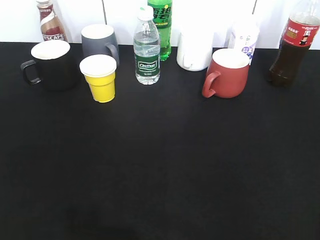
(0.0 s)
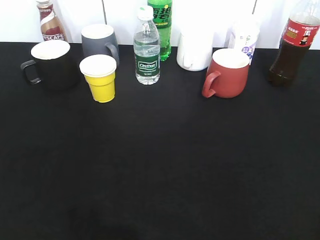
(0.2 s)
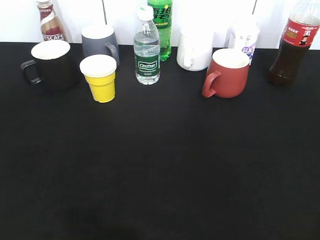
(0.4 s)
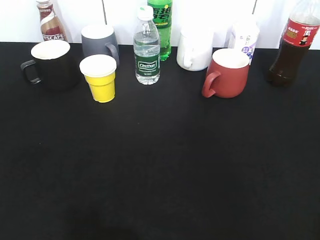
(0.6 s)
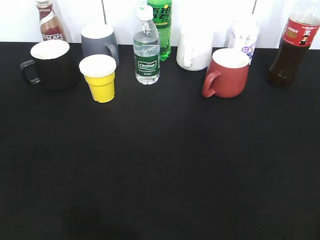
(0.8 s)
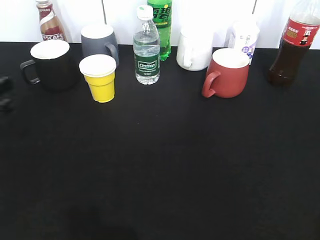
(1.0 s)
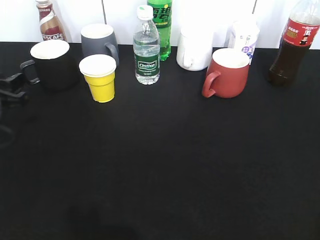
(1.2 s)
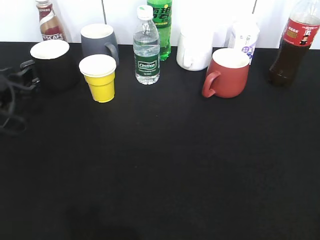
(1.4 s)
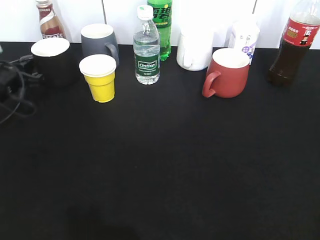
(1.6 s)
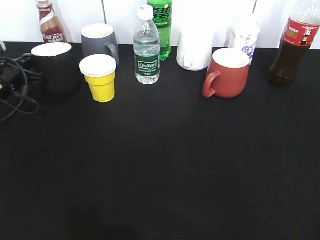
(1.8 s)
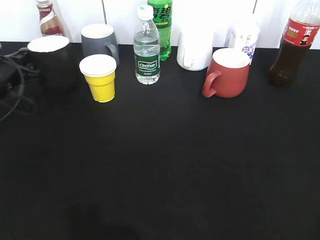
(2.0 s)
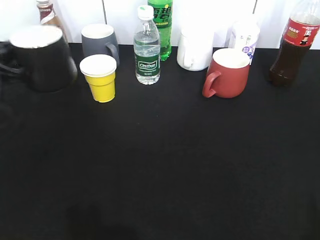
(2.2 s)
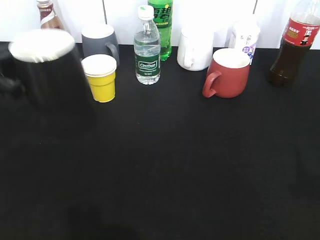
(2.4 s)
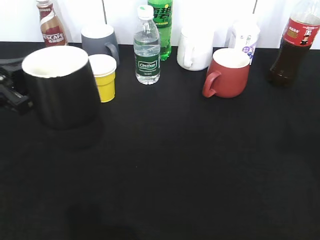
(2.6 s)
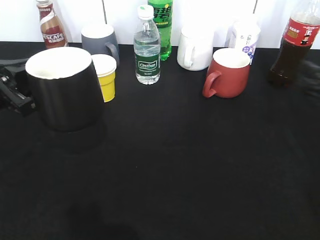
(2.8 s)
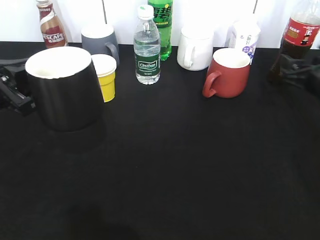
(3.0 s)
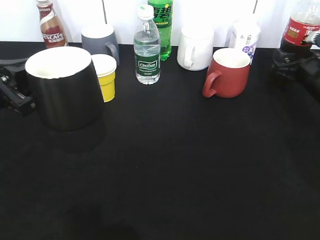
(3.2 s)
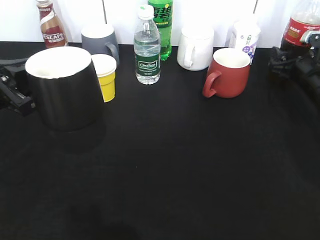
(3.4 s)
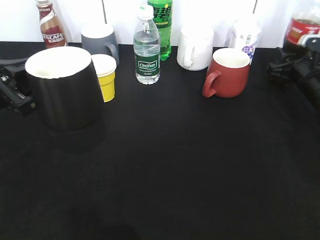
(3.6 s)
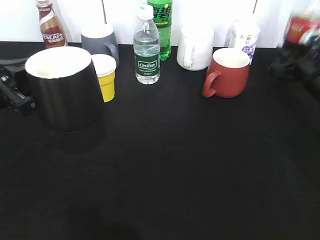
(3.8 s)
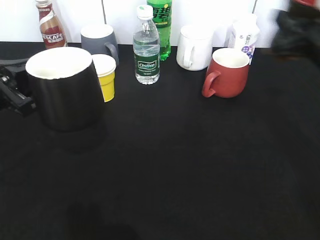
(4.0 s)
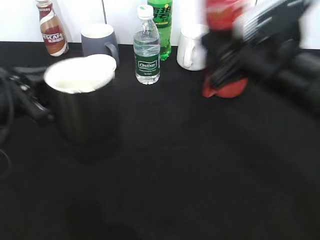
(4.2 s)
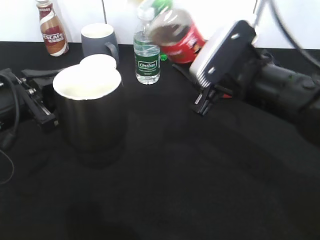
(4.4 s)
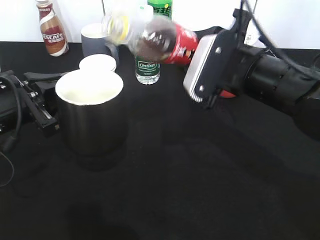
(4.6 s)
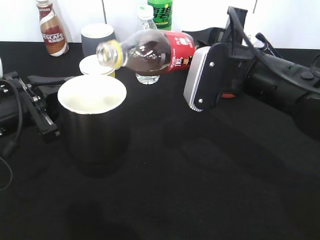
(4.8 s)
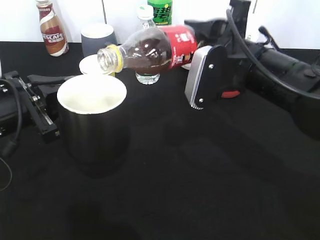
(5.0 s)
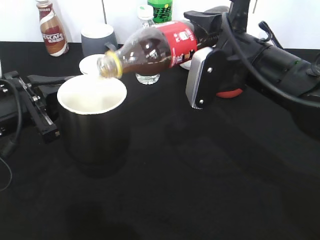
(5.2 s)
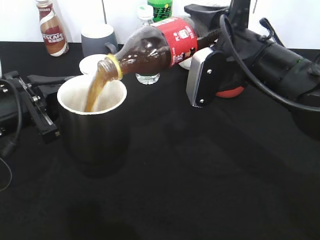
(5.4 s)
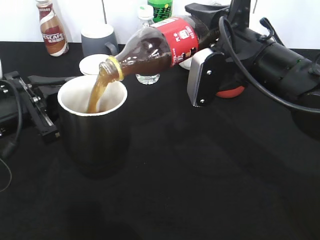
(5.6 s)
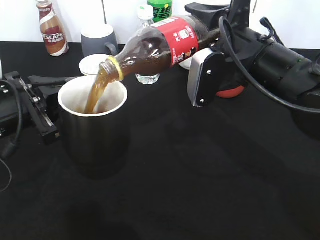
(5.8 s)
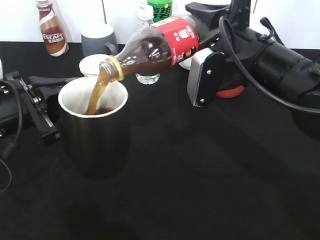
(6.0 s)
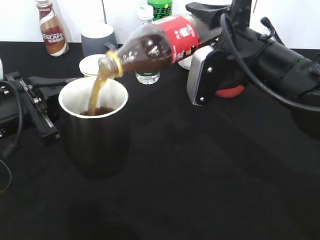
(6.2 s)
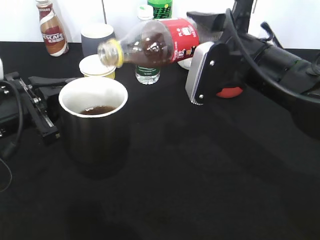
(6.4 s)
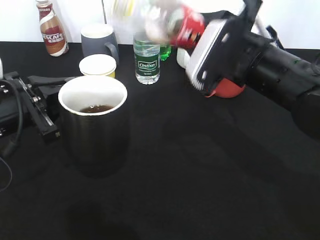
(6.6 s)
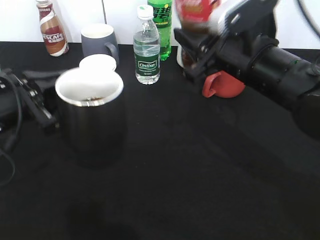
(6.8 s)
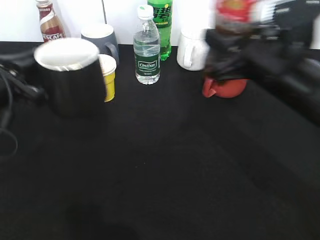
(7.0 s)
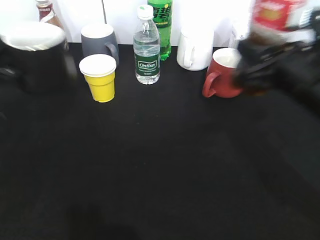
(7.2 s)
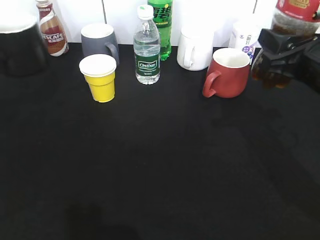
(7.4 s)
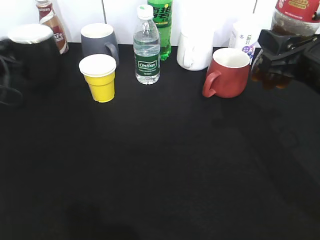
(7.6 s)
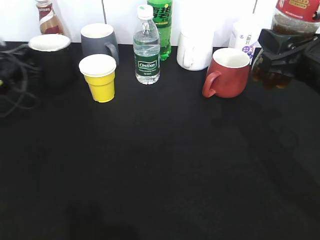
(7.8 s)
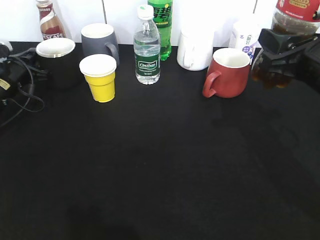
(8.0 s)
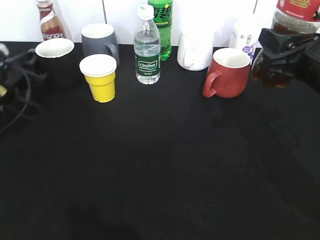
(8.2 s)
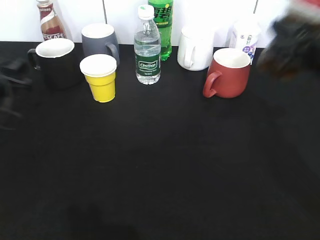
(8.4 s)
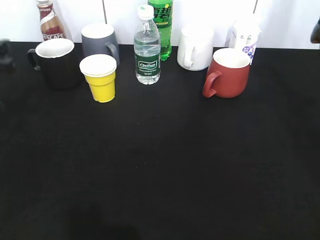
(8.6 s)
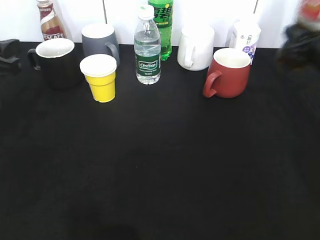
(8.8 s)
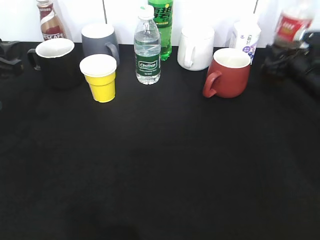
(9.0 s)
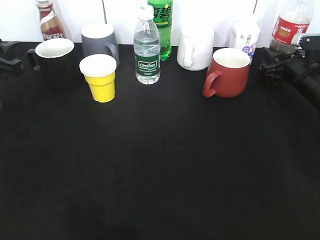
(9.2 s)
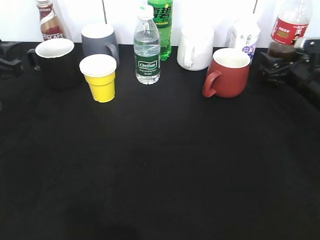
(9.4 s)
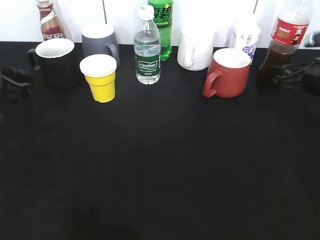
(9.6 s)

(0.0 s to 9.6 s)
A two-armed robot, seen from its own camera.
Step, 0.0 s - 1.6 s: Grasp the black cup with left gripper.
Step, 2.0 s - 2.4 s: Lift the black cup with left gripper.
Step, 3.8 s - 6.4 s: Pour the cola from bottle to cup with right gripper.
Step, 6.6 s - 8.2 s: Place the black cup on the table with left gripper.
0.0 s - 1.6 s: The left gripper travels forward and downward by some 40 cm, and closes its fingers.
1.6 s - 3.2 s: The left gripper shifts about 15 cm backward and upward. Meanwhile the right gripper is displaced forward by about 40 cm.
3.2 s - 4.8 s: The right gripper goes approximately 25 cm to the left, backward and upward, and closes its fingers.
6.4 s - 8.0 s: The left gripper travels forward, to the left and downward by roughly 20 cm. Meanwhile the right gripper is displaced to the right by roughly 10 cm.
8.0 s - 9.6 s: The right gripper heads forward, to the right and downward, covering some 15 cm, and opens up. Meanwhile the left gripper goes roughly 20 cm backward and upward, and opens up.

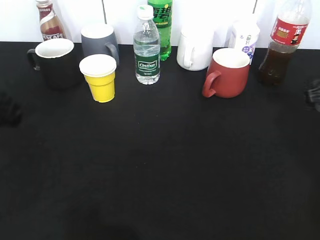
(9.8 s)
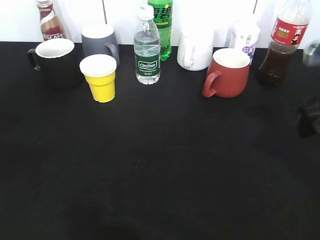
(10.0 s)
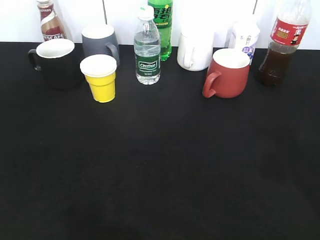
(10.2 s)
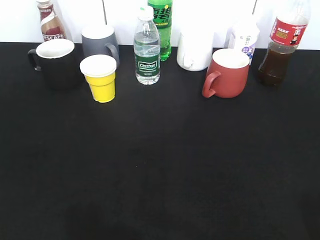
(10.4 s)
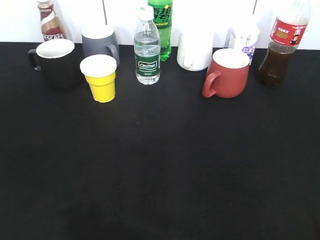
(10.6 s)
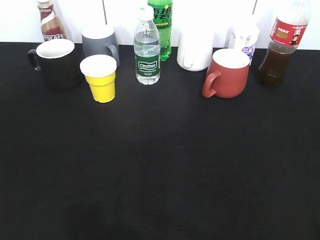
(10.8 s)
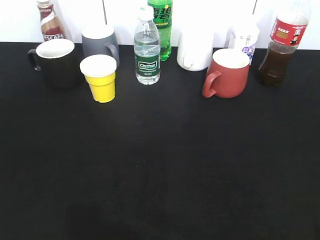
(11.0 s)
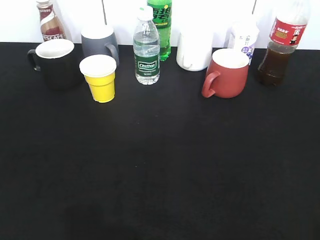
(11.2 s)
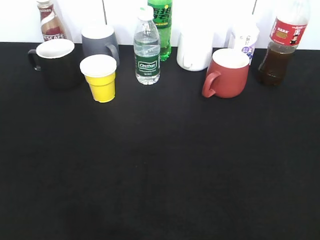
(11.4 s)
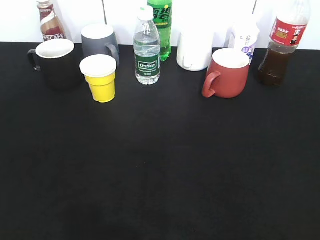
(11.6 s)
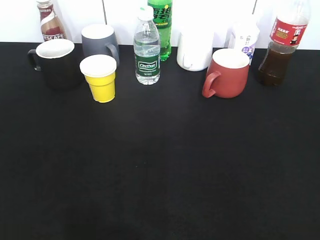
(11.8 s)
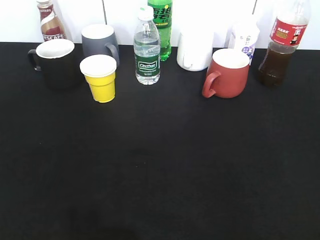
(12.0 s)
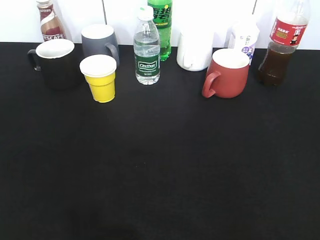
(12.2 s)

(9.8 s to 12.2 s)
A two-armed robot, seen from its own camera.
9.8 s - 11.0 s: Both grippers travel together backward, approximately 25 cm.

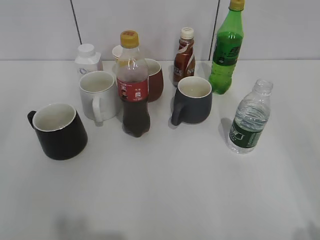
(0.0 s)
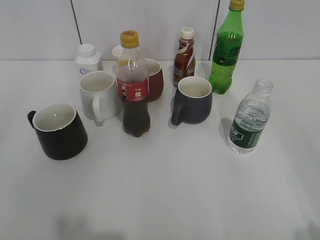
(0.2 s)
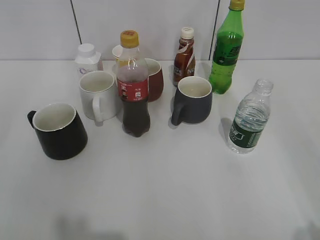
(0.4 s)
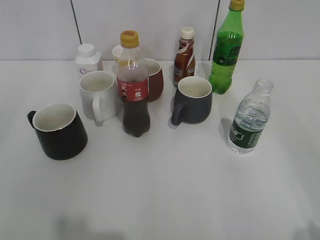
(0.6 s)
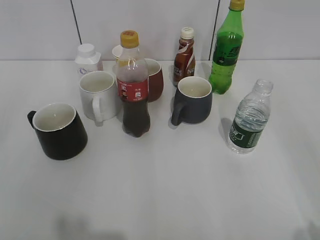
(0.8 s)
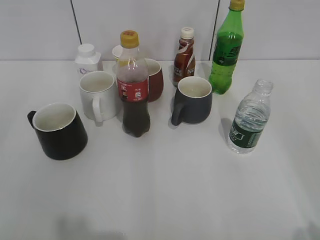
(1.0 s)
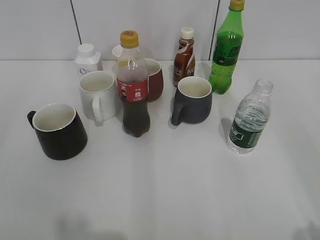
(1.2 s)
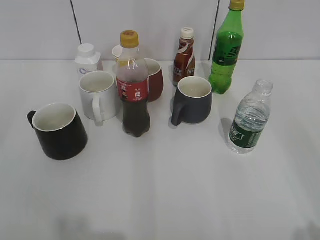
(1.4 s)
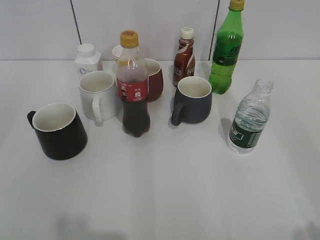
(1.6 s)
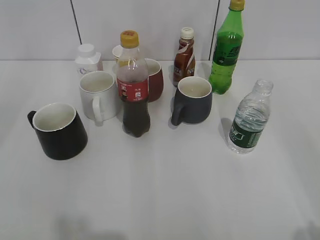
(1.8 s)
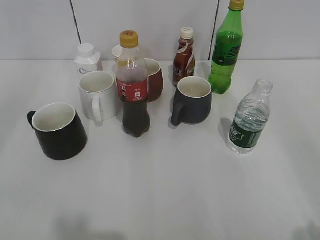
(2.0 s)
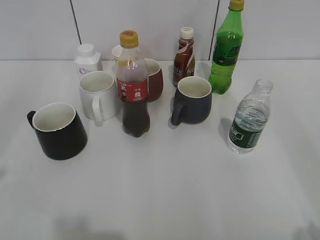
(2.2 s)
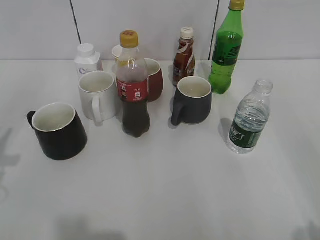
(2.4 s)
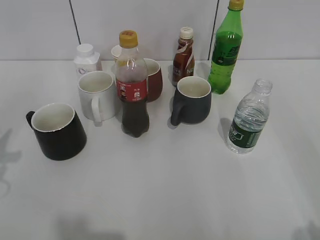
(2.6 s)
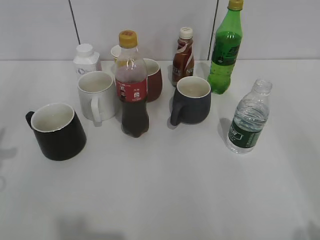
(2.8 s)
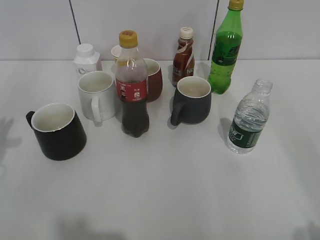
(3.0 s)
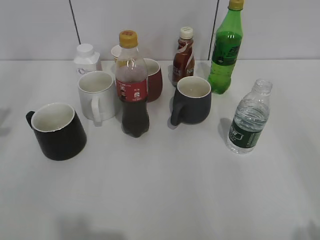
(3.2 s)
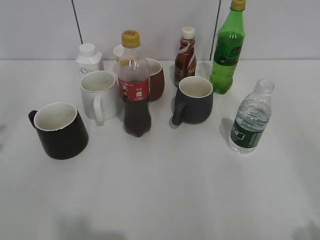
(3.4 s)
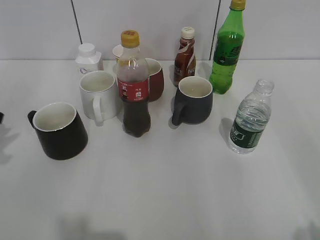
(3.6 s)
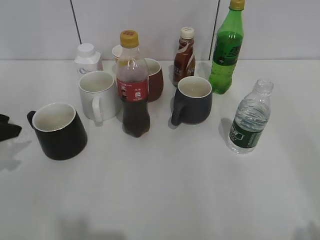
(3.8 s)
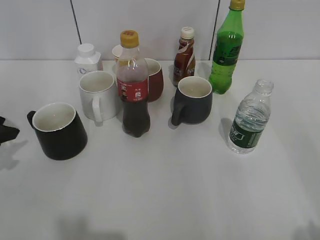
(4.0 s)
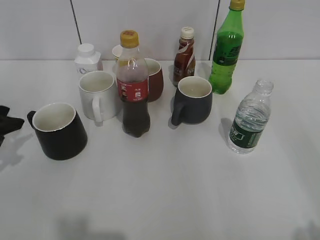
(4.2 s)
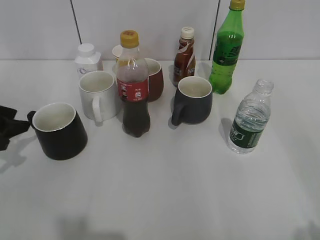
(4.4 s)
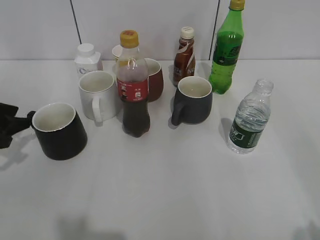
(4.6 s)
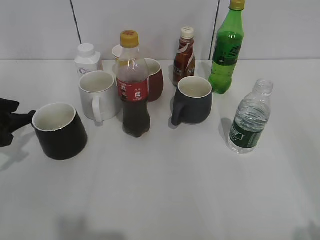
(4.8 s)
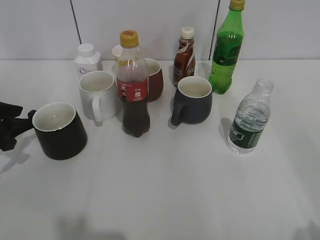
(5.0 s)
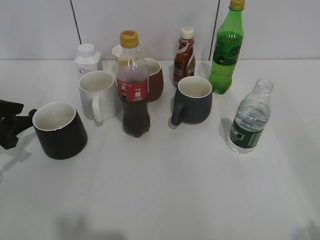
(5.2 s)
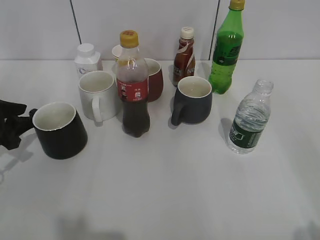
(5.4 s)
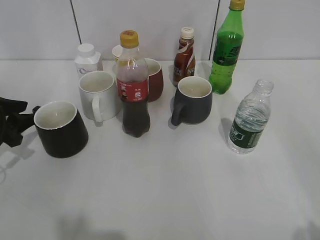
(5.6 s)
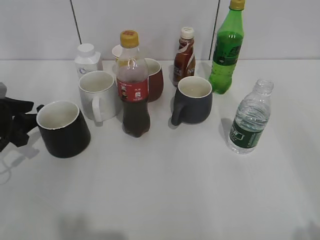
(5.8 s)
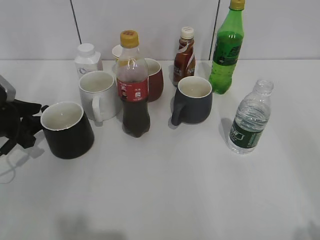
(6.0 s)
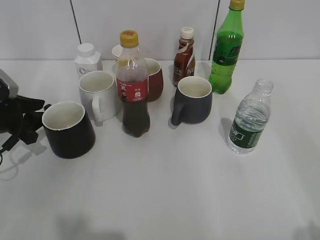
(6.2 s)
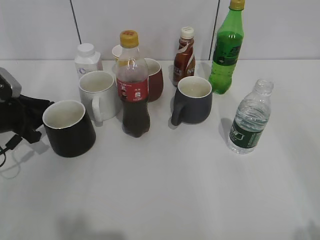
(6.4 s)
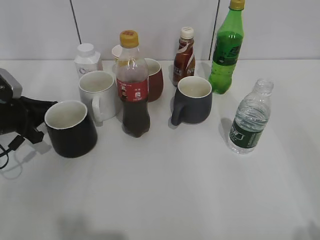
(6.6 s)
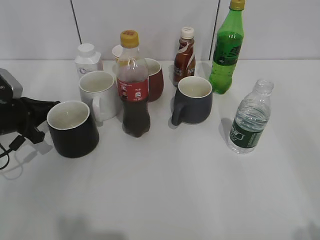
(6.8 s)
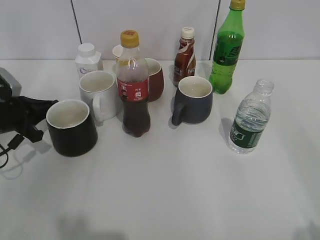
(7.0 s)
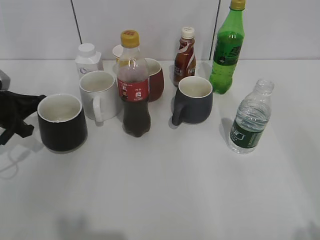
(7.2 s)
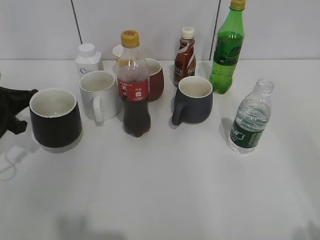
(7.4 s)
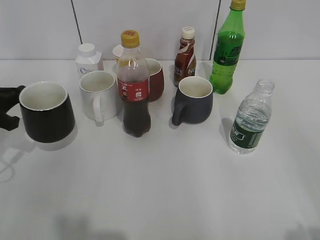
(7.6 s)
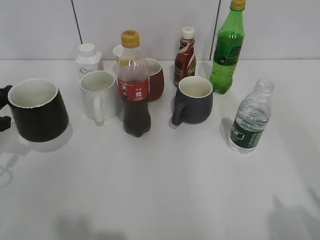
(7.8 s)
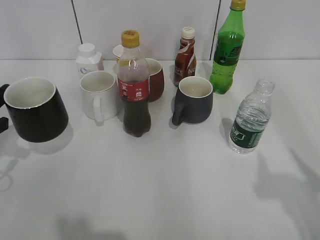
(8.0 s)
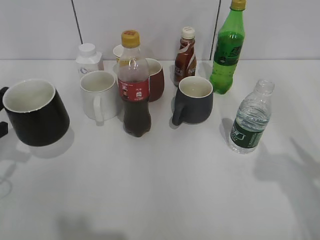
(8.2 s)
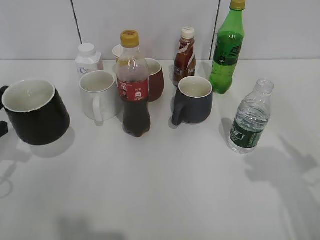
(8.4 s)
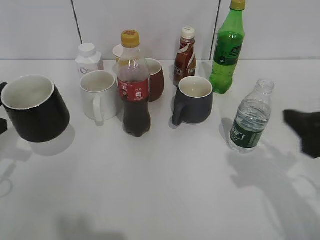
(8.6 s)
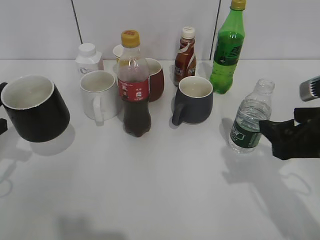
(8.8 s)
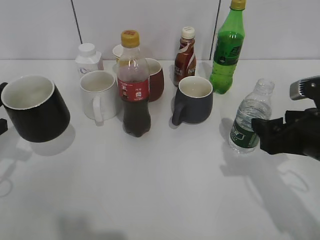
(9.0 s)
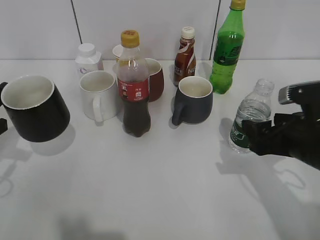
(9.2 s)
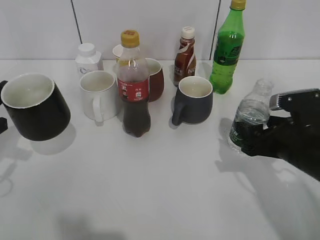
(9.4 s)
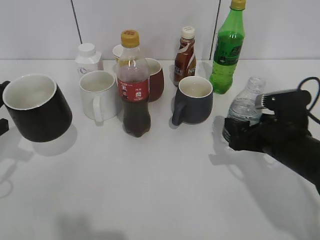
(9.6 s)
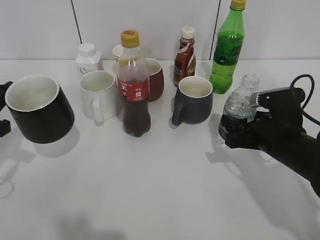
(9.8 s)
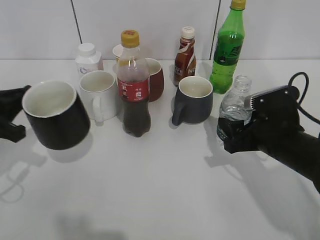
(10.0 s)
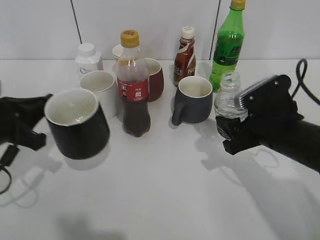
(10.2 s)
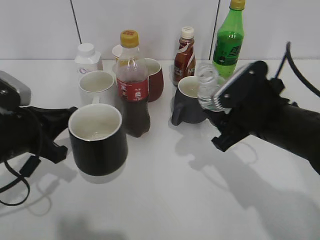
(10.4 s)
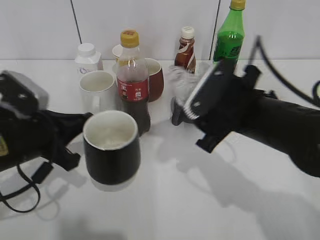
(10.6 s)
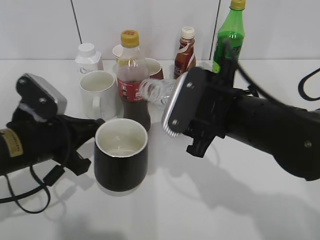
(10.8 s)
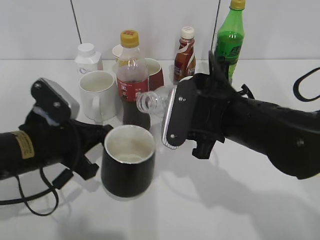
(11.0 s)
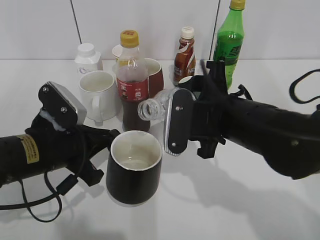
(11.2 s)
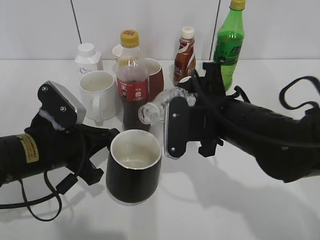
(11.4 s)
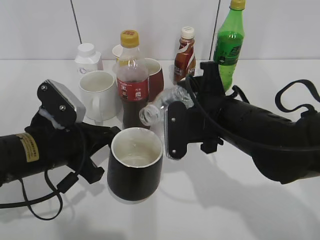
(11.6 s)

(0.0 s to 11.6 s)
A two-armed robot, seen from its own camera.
Step, 1.2 s - 6.8 s: Grasp the black cup with left gripper.
Step, 7.0 s - 8.4 s: Lift the black cup with left gripper.
Step, 8.6 s - 9.8 s: Grasp the bottle with water with right gripper.
1.4 s - 2.8 s: The left gripper goes roughly 25 cm forward and downward.
2.8 s - 4.4 s: The left gripper heads forward and downward, covering approximately 10 cm, and opens.
4.4 s - 5.8 s: The grippers move only a little.
5.8 s - 7.2 s: The left gripper closes.
7.2 s - 8.8 s: The left gripper shifts about 10 cm backward; the right gripper shifts some 20 cm forward and downward.
8.8 s - 10.2 s: The left gripper moves to the right, some 5 cm. Meanwhile the right gripper goes about 10 cm downward and forward, and closes up.
10.2 s - 11.6 s: The left gripper shifts roughly 10 cm to the right, while the right gripper travels to the left by some 10 cm.
